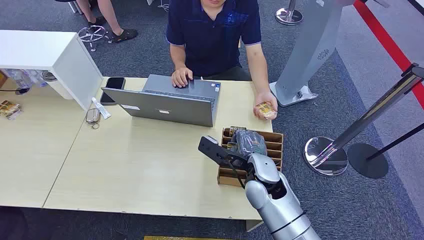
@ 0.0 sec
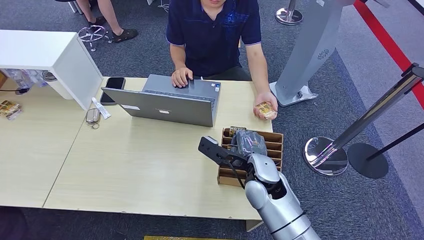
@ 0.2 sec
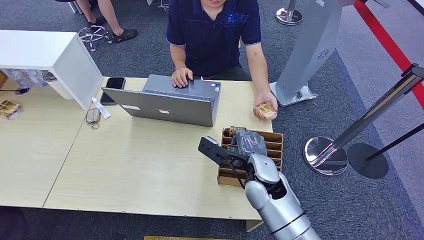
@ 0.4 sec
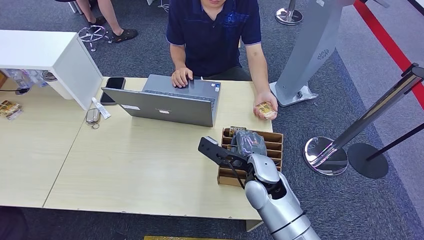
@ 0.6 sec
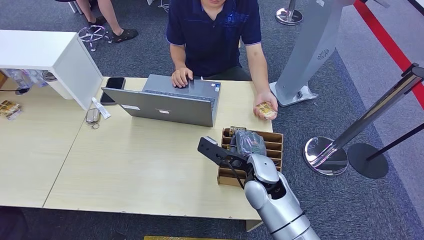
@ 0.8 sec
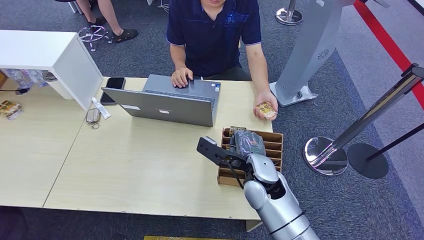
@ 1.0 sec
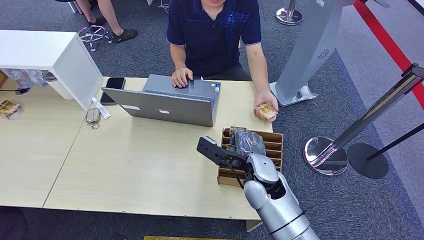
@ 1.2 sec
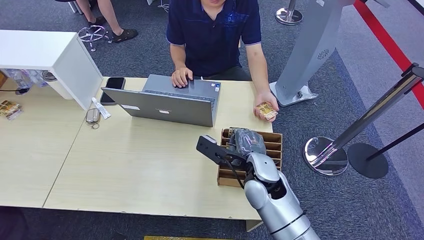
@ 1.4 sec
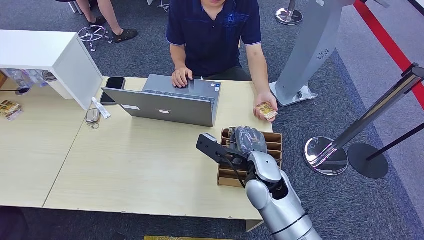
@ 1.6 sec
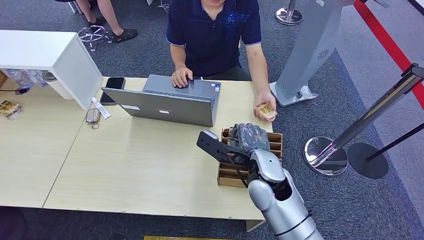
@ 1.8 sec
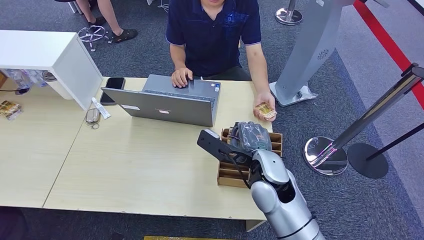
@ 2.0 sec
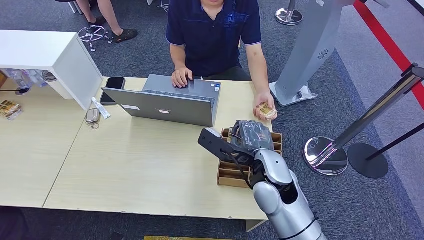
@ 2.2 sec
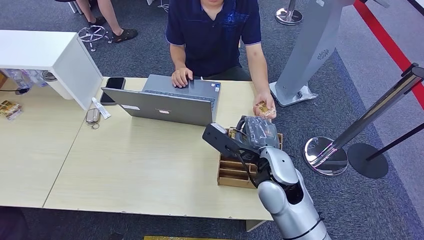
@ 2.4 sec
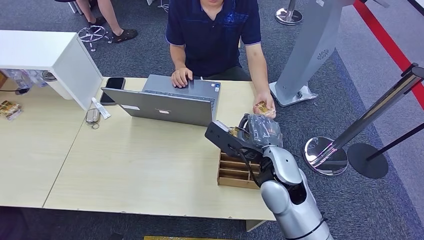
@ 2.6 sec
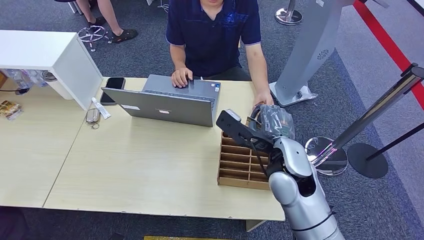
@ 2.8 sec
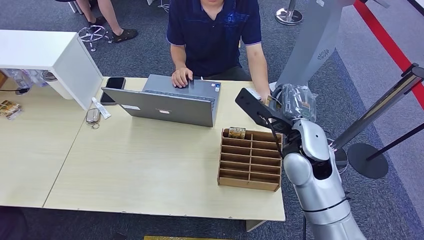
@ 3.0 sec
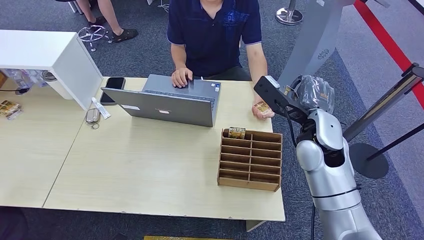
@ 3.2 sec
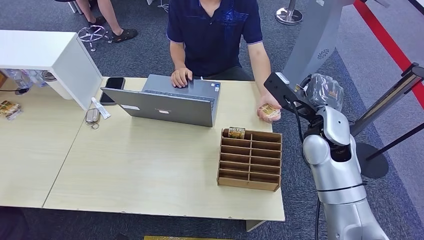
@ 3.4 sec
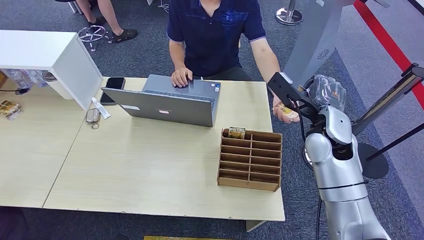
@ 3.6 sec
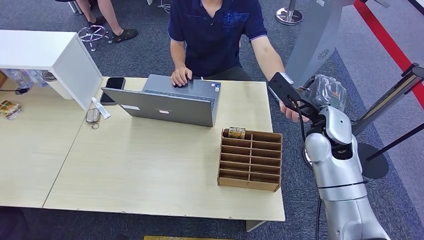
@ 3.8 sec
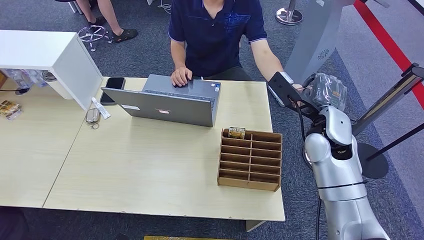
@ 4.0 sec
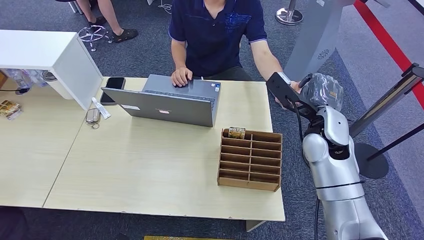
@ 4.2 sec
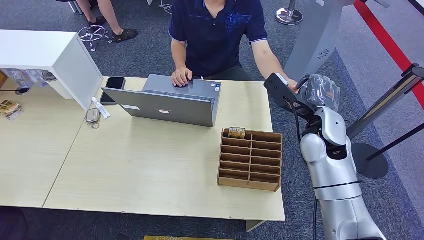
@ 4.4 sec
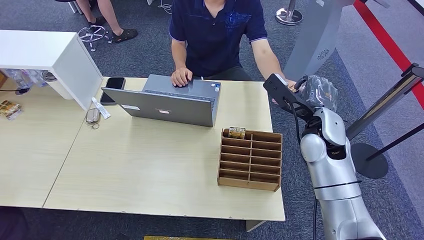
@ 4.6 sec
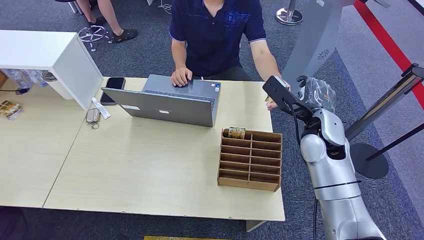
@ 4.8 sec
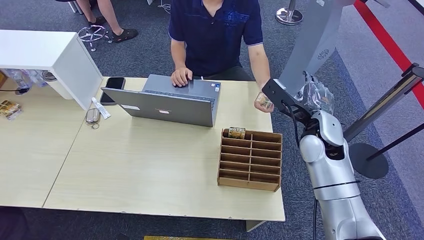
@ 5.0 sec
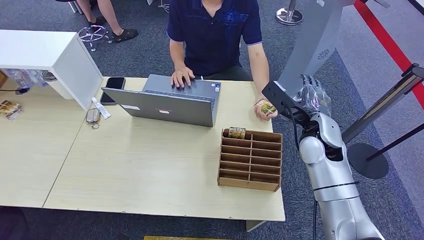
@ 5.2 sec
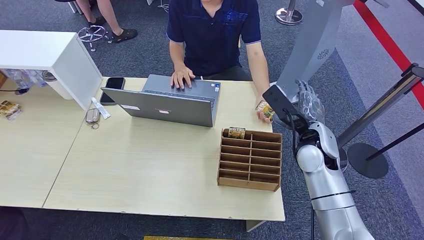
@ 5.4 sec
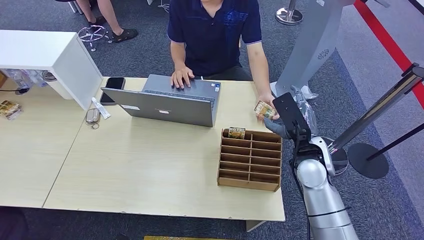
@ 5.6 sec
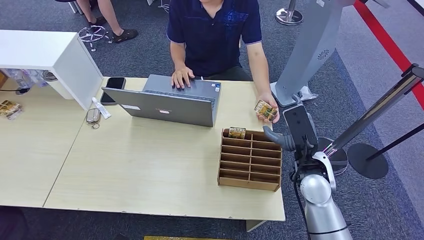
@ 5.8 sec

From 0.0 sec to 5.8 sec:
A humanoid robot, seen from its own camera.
Step, from 0.0 sec to 3.4 sec: Pick up the room card from the card holder.
Step, from 3.6 sec to 5.8 sec: Hand the room card to the target.
From 1.4 sec to 2.8 sec: The right hand heads upward, covering approximately 5 cm.
From 2.8 sec to 4.4 sec: The right hand is displaced to the right and forward by roughly 10 cm.
From 4.4 sec to 5.8 sec: The right hand travels downward and backward by some 10 cm.
